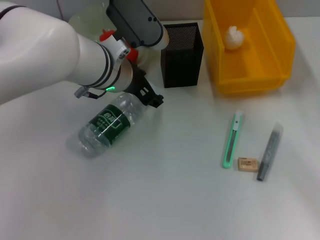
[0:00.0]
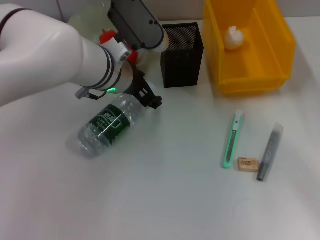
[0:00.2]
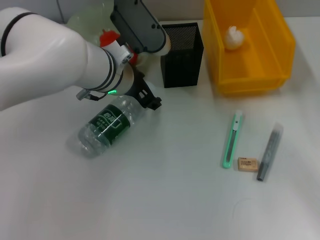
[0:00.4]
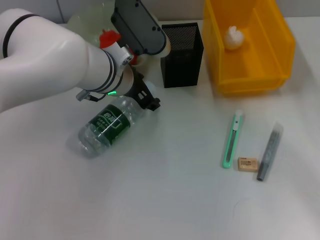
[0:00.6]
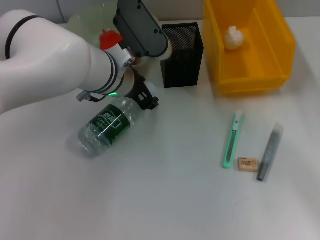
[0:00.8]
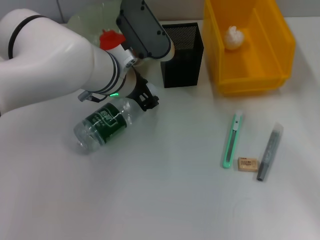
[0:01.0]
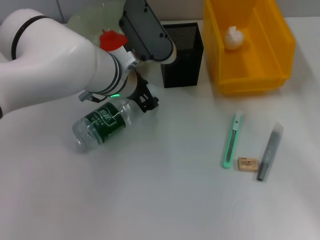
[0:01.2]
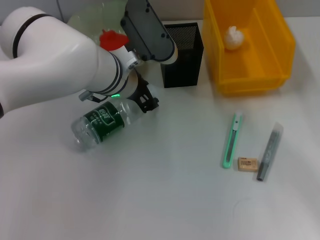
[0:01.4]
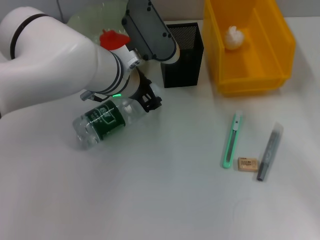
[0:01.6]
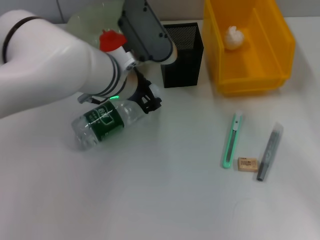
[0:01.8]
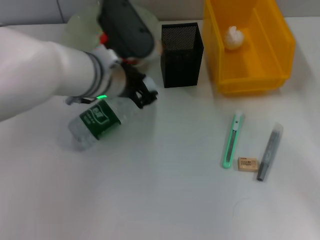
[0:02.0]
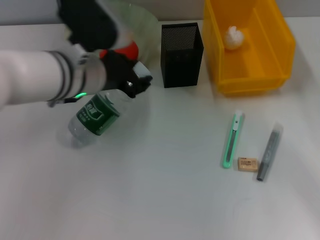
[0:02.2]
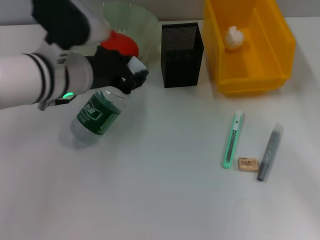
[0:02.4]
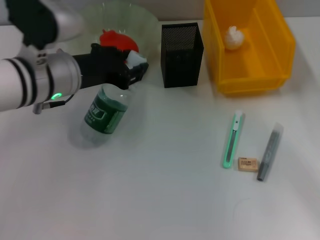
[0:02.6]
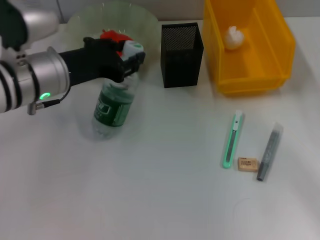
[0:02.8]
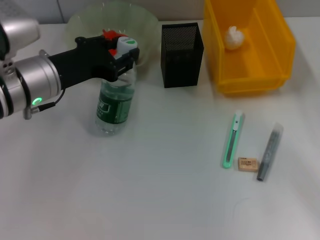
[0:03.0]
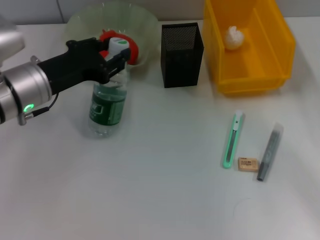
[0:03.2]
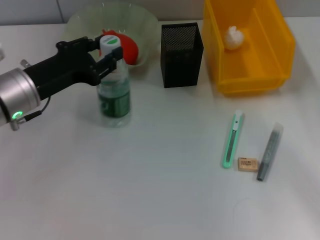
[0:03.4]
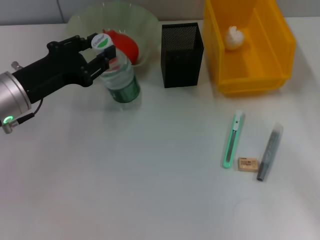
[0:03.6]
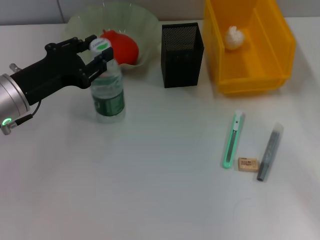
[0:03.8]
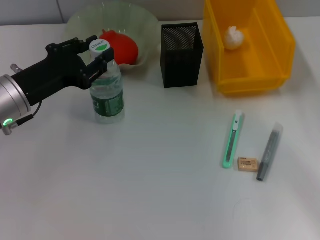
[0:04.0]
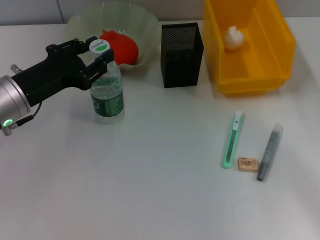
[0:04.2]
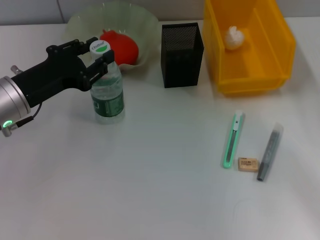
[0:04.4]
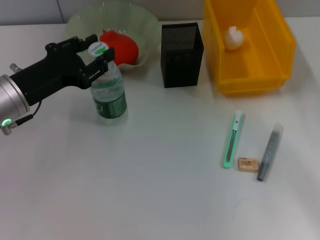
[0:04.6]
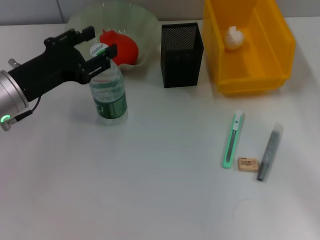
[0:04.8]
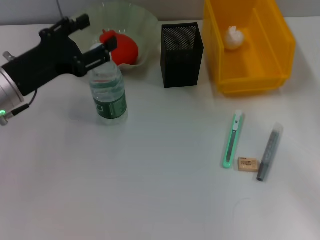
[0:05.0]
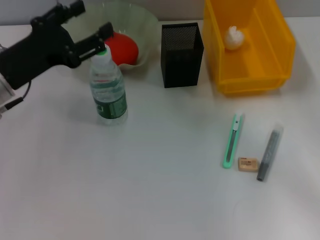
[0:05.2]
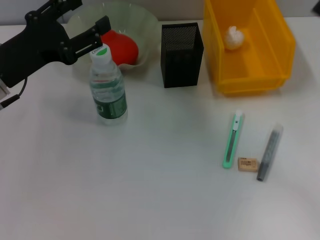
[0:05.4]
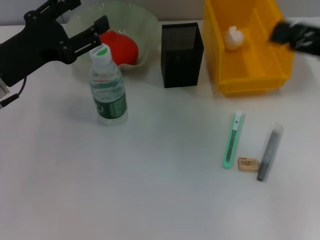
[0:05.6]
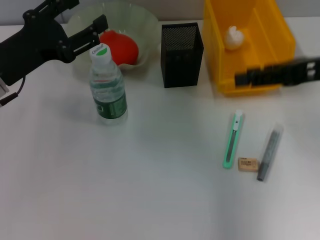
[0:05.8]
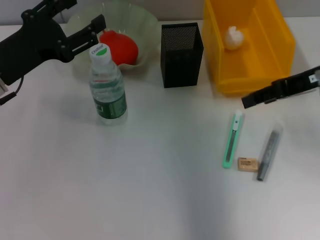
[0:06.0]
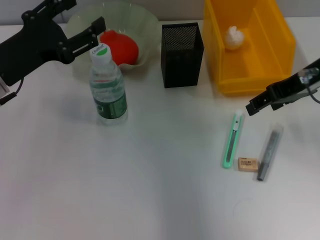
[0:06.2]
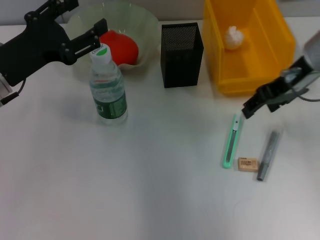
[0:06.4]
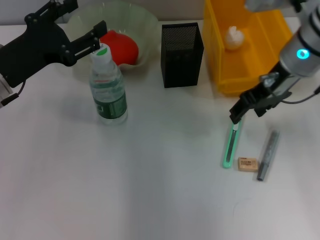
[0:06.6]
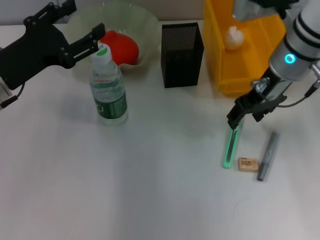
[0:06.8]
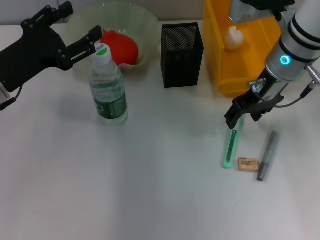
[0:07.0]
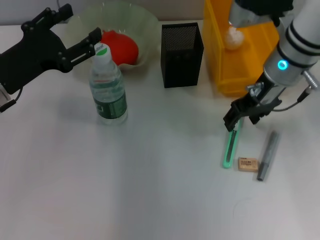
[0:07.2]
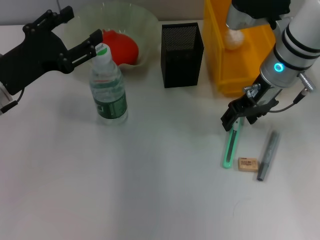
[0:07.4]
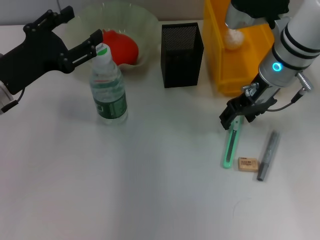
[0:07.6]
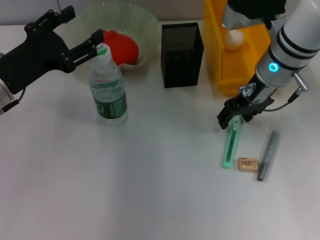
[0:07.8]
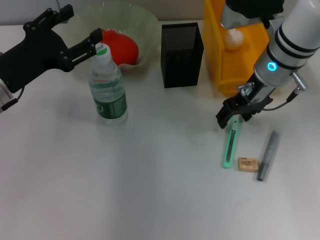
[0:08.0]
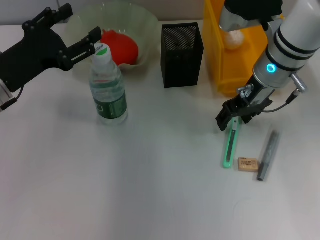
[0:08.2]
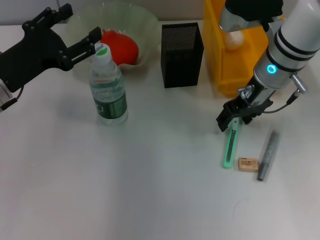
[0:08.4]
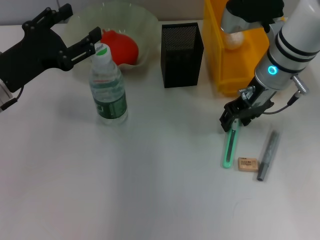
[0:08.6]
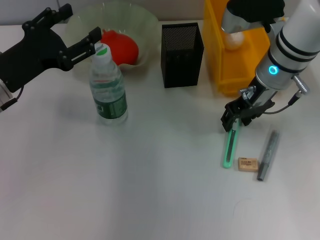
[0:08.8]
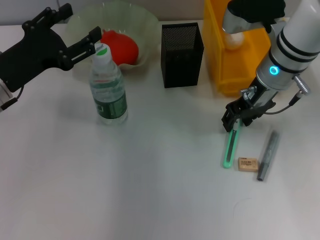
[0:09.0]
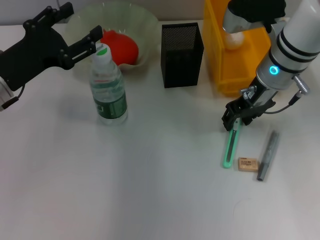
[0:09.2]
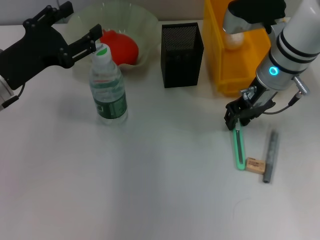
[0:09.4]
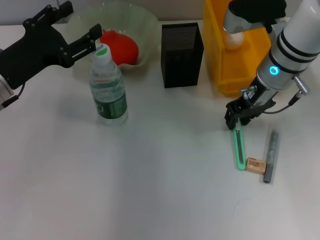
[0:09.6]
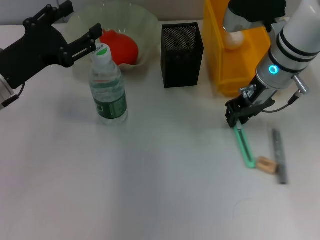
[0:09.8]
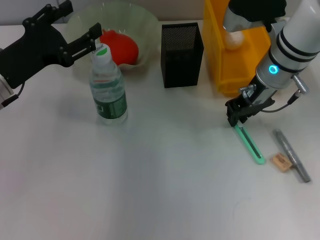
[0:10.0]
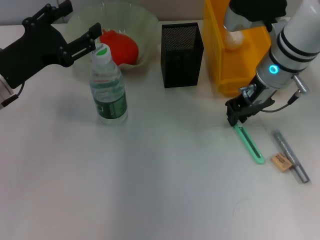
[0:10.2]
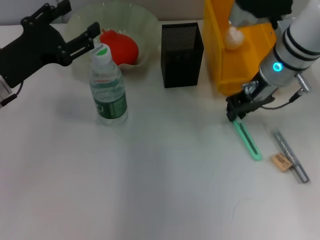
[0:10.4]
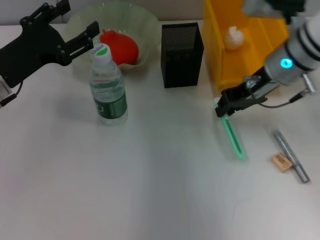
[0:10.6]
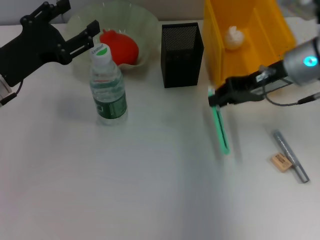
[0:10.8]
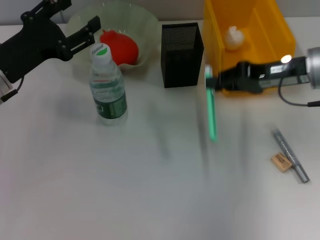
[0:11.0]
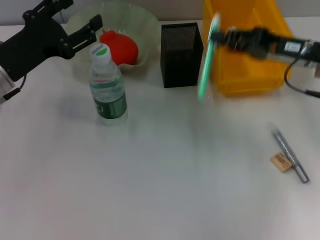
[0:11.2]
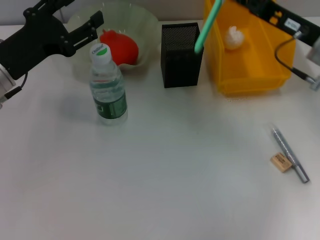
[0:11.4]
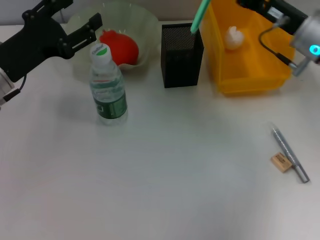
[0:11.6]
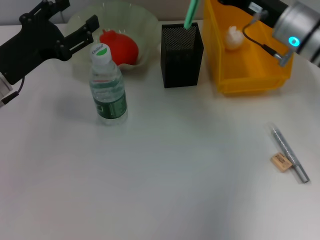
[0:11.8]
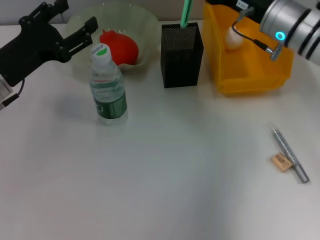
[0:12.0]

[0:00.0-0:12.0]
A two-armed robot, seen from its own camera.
Step, 0:01.6 to 0:04.6: Place the water bottle on the table with the left hand.
Step, 0:04.8 to 0:10.2: Grab the blue utility knife with the right hand.
0:00.0 to 0:01.6: The left gripper closes.
0:01.6 to 0:03.0: The left gripper travels to the left by some 10 cm.
0:03.0 to 0:04.4: The left gripper ends up about 5 cm from where it was.
0:04.4 to 0:06.0: The right gripper moves upward, to the left and forward, about 15 cm; the left gripper opens its fingers.
0:06.0 to 0:07.6: The right gripper travels to the left, forward and downward by some 15 cm.
0:07.6 to 0:09.0: Both grippers stay put.
0:09.0 to 0:10.4: The right gripper closes up.
0:10.4 to 0:12.0: The right gripper travels to the right and back again, about 10 cm each way.

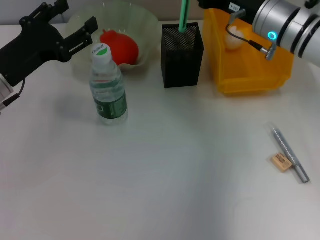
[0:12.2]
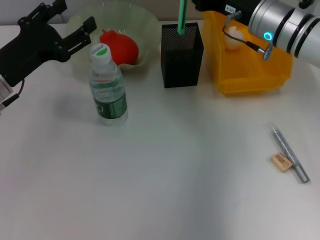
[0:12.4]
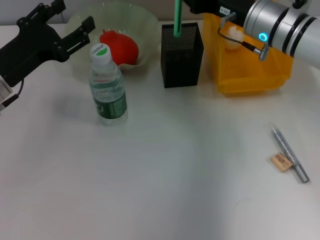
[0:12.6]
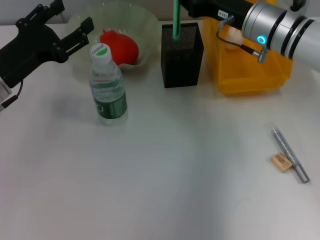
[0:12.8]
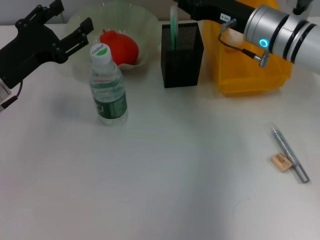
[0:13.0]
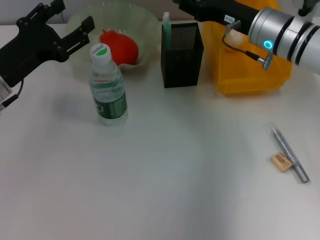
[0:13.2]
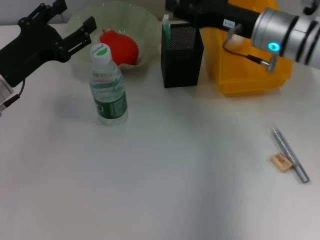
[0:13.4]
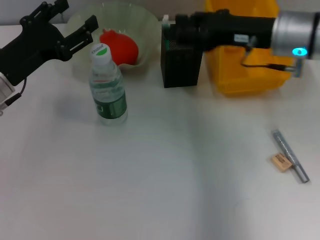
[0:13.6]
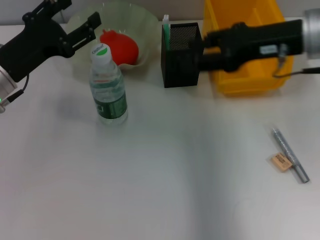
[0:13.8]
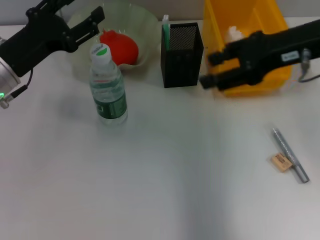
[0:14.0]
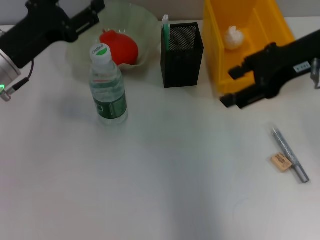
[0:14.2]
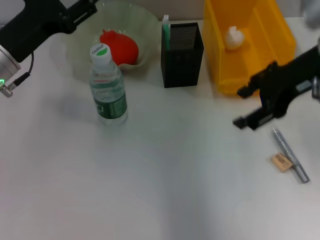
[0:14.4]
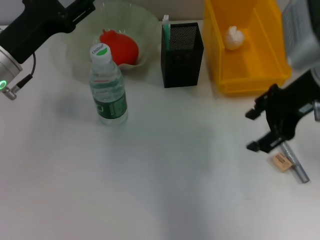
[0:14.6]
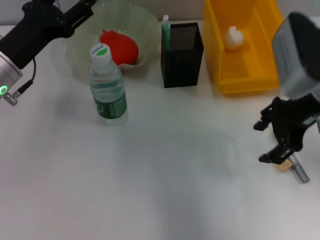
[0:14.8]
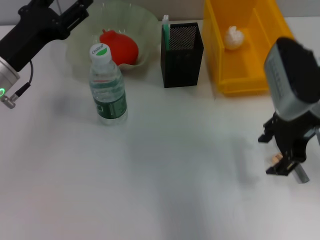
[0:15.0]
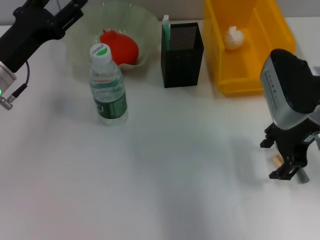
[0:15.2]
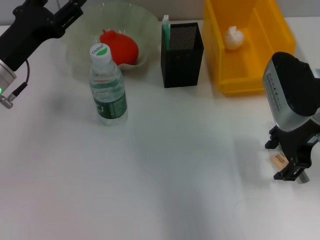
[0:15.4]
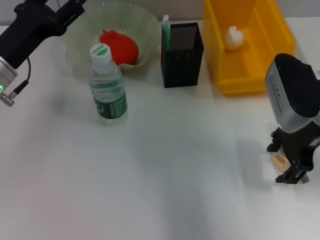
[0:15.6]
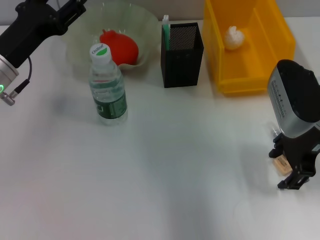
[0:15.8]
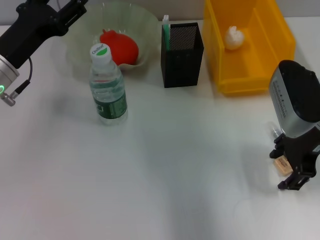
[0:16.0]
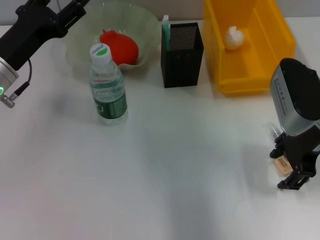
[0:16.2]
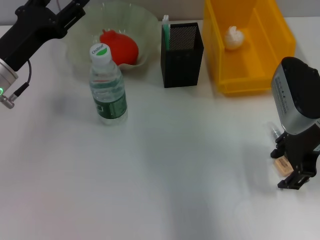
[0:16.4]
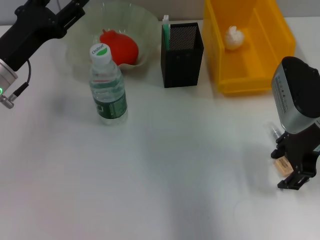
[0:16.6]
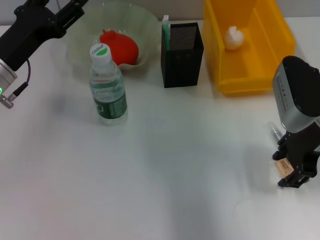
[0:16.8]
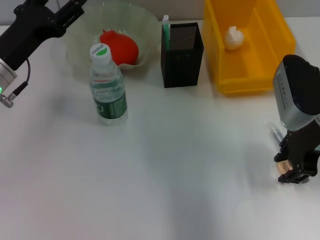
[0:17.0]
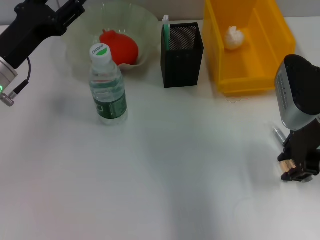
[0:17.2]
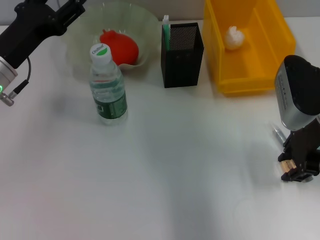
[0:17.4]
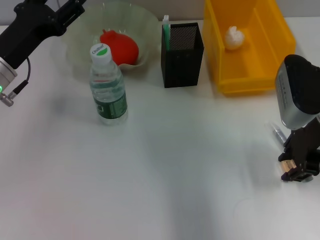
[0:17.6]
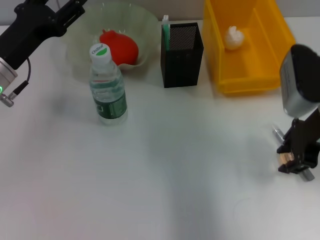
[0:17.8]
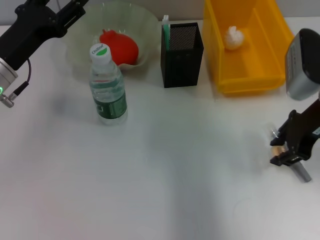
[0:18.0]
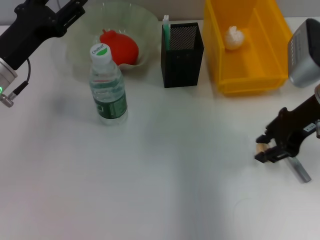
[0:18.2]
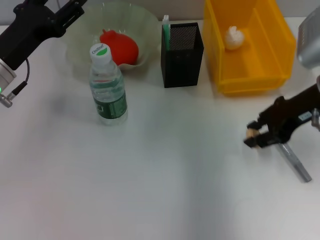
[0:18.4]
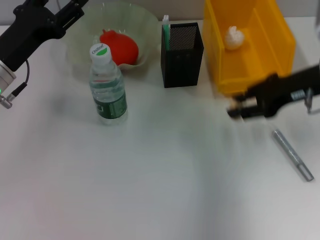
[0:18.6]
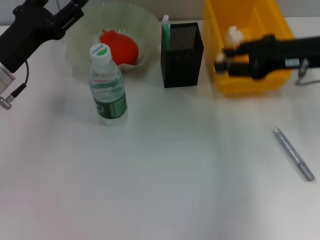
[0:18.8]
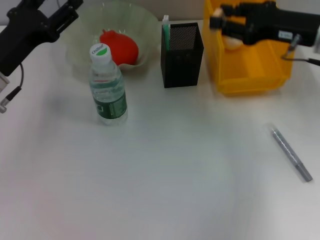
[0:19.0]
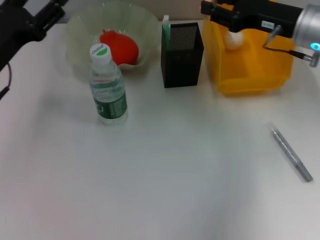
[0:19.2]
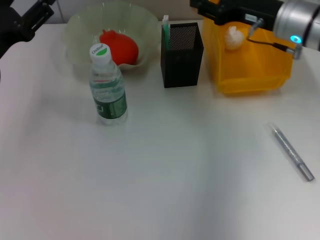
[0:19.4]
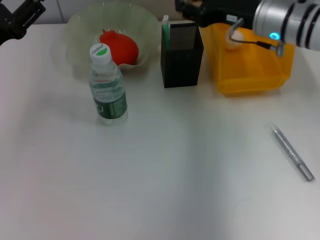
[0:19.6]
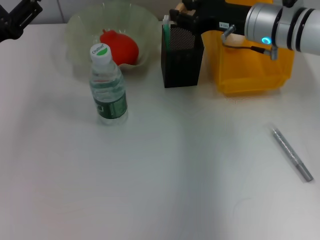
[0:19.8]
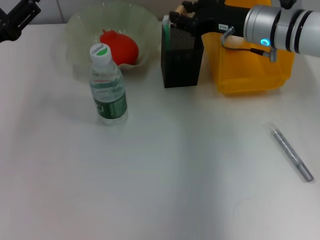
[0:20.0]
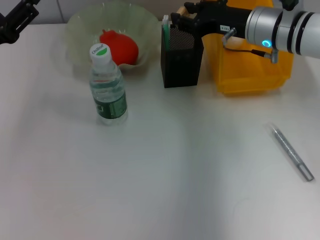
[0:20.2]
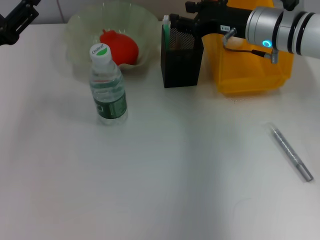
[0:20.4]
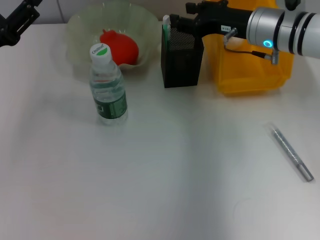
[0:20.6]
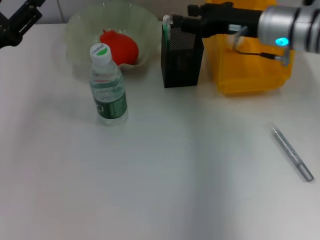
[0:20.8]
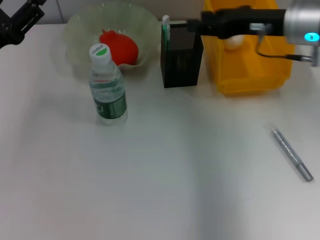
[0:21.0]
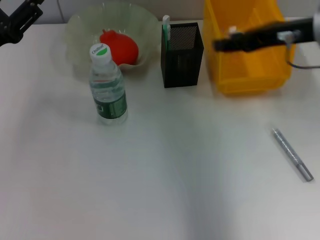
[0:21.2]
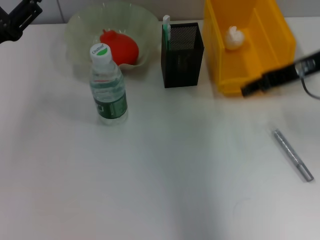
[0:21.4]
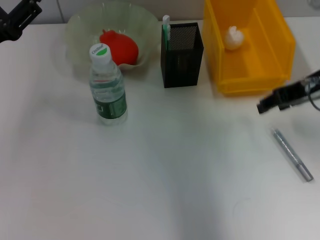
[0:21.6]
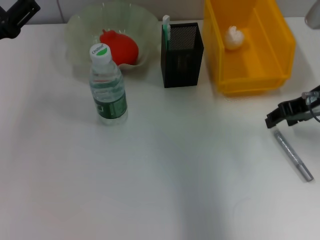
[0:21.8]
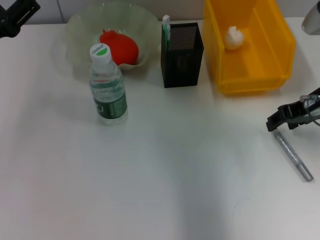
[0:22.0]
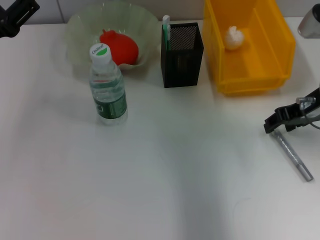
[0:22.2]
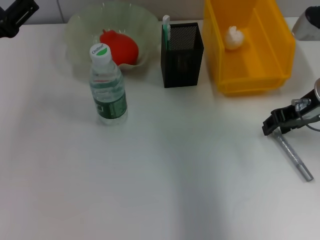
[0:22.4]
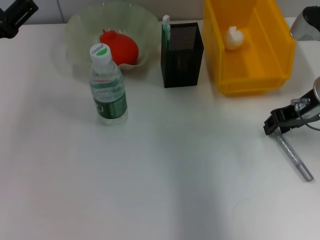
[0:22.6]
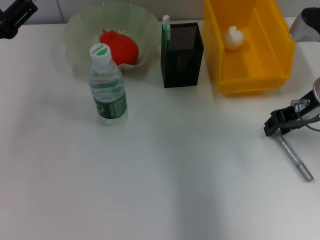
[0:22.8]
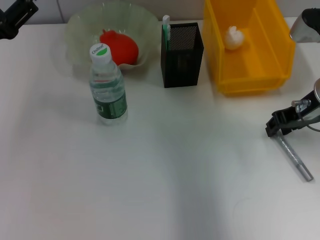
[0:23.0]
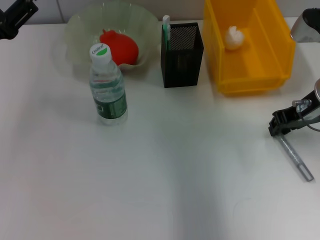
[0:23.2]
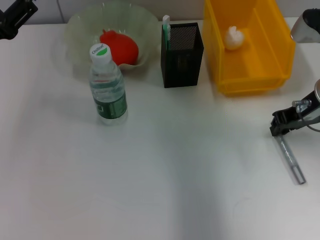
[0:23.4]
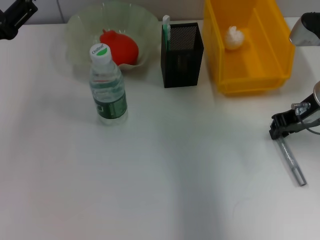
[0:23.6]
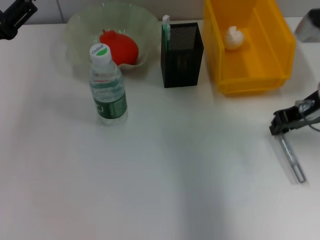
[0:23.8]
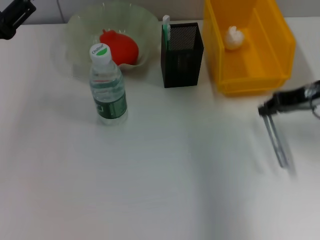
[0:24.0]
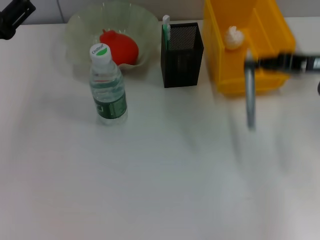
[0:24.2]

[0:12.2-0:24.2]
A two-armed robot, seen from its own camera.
Step, 0:13.4 to 0:17.4: Grab the eraser with the right hand.
Step, 0:17.6 to 0:20.4: Put the eraser into the pen holder with the right hand.
Step, 0:20.6 to 0:23.6: Grab the gray glue with the right hand.
0:12.2 to 0:13.8: The right gripper shifts some 10 cm upward and backward, and opens.
0:13.8 to 0:15.2: The right gripper goes approximately 5 cm downward.
0:15.2 to 0:16.6: The grippers make only small movements.
0:16.6 to 0:18.2: The right gripper closes.
0:18.2 to 0:19.8: The right gripper moves forward and to the left, approximately 10 cm. The left gripper shifts by about 5 cm.
0:19.8 to 0:21.2: The right gripper shifts some 10 cm upward, backward and to the right.
0:21.2 to 0:22.6: The right gripper shifts about 10 cm downward.
0:22.6 to 0:24.2: The right gripper ends up approximately 5 cm from where it was, and closes.
